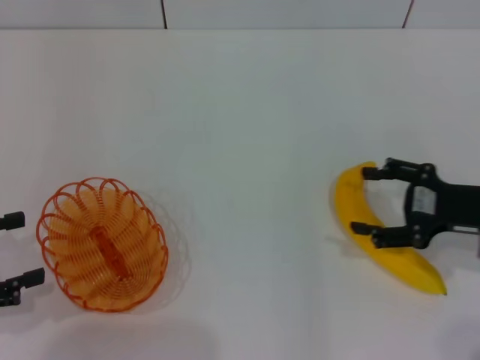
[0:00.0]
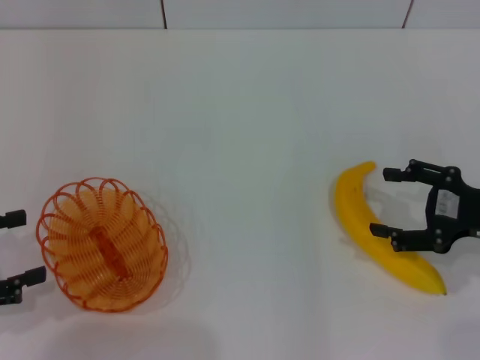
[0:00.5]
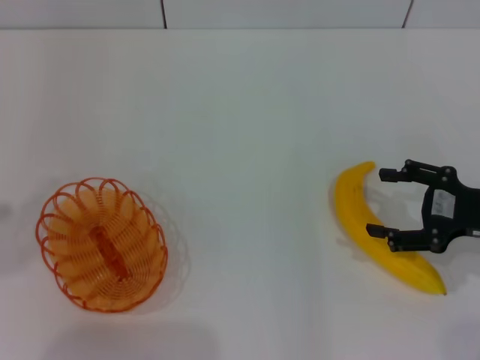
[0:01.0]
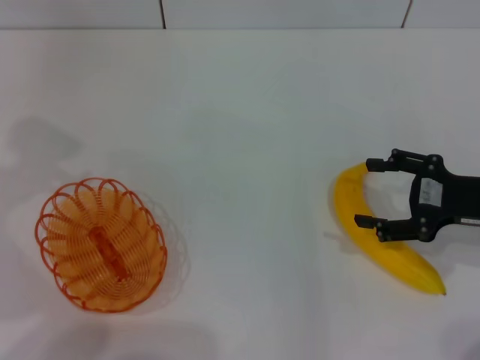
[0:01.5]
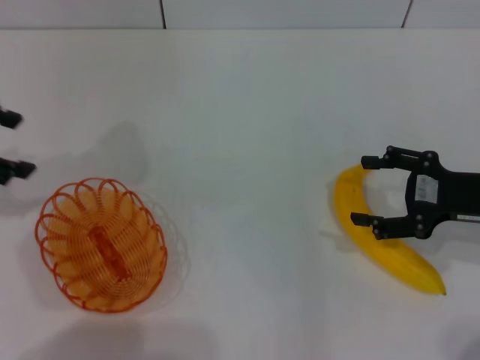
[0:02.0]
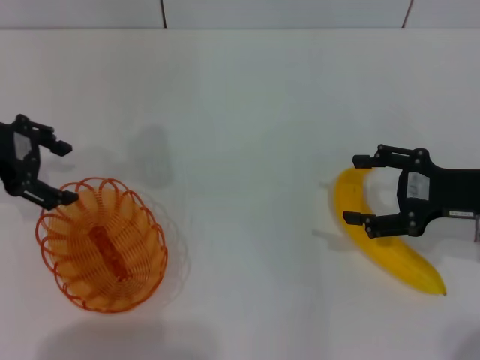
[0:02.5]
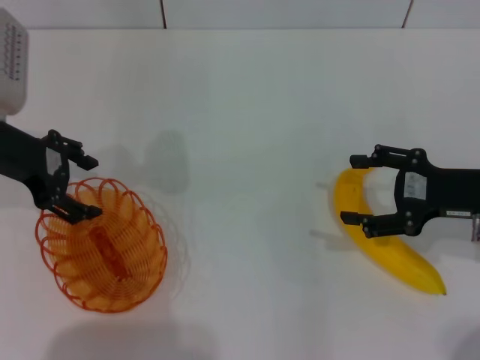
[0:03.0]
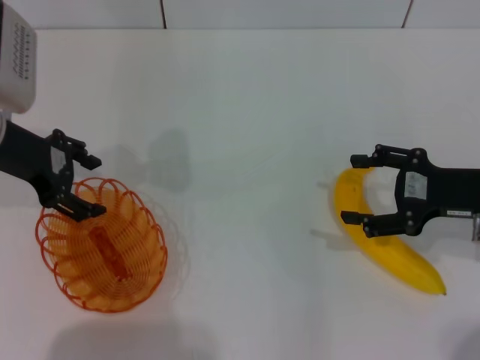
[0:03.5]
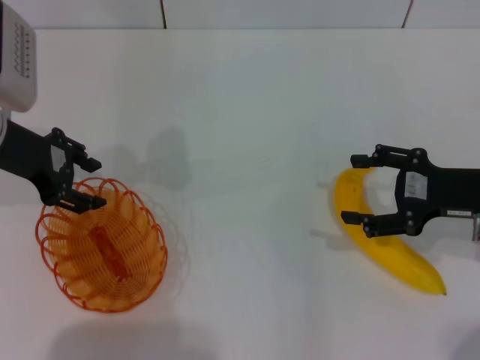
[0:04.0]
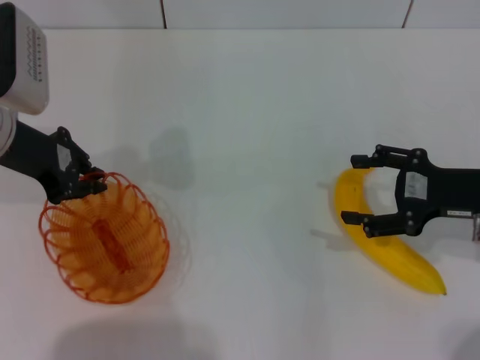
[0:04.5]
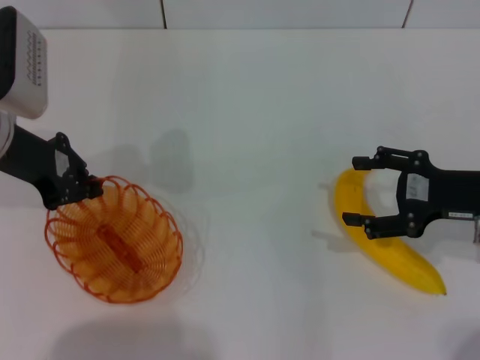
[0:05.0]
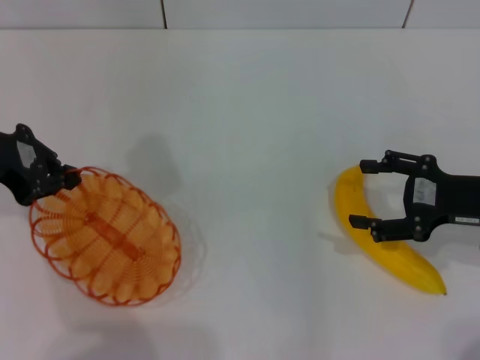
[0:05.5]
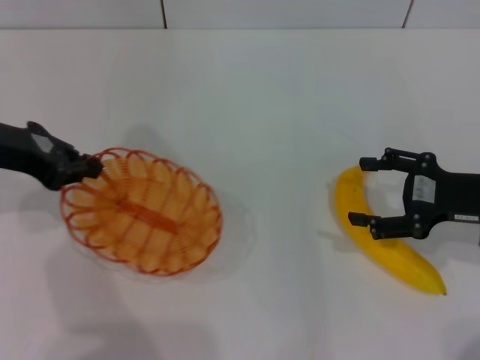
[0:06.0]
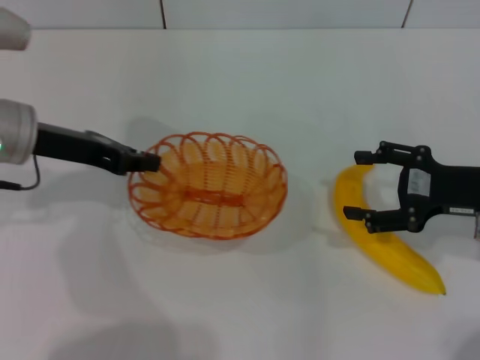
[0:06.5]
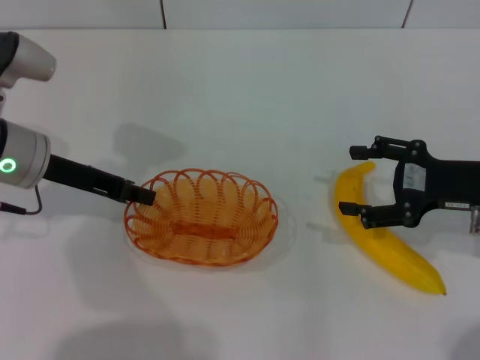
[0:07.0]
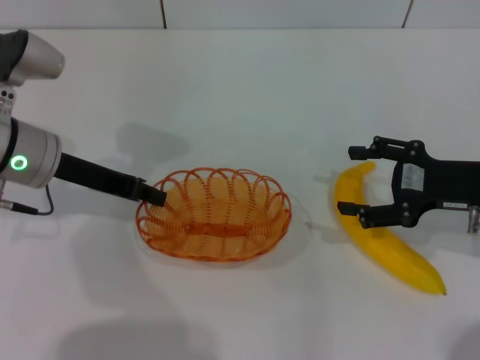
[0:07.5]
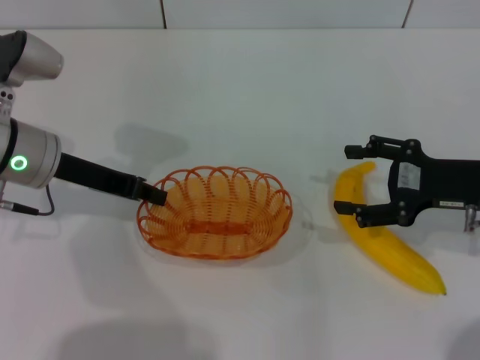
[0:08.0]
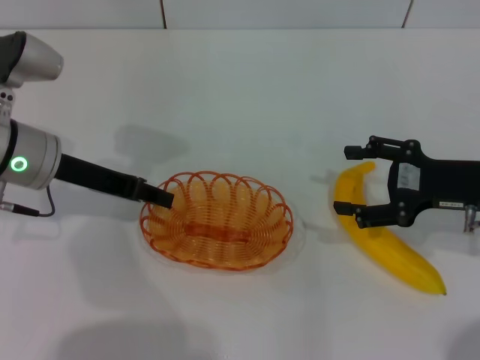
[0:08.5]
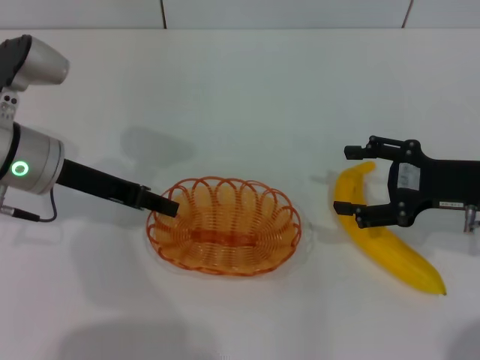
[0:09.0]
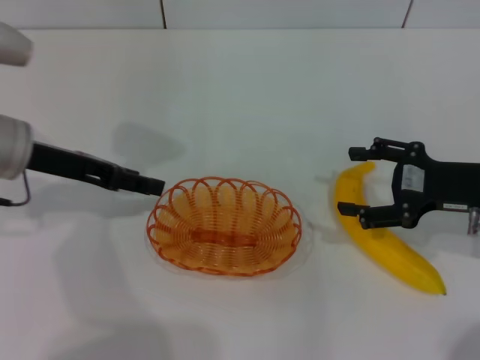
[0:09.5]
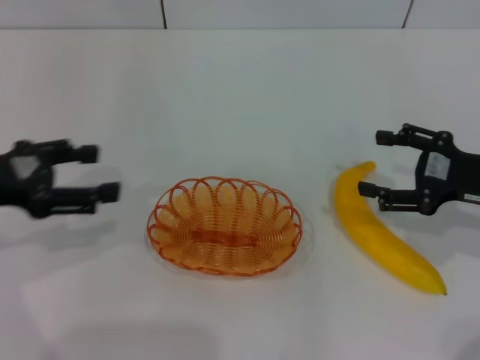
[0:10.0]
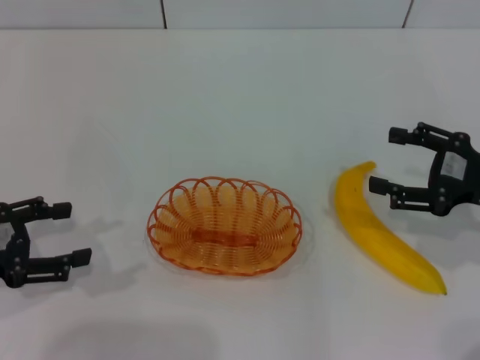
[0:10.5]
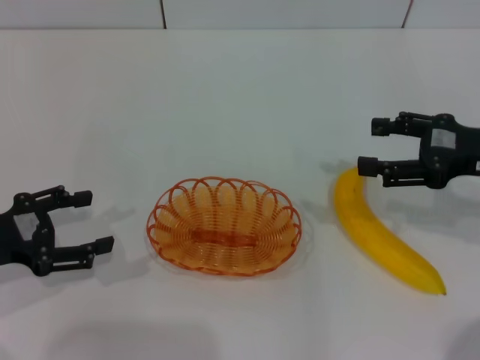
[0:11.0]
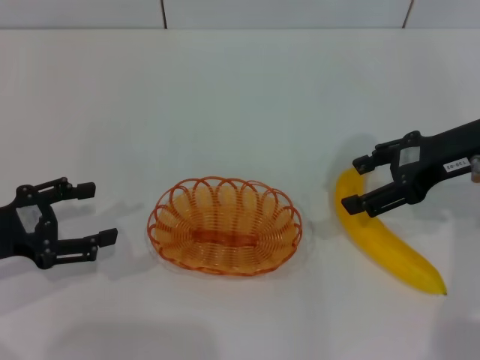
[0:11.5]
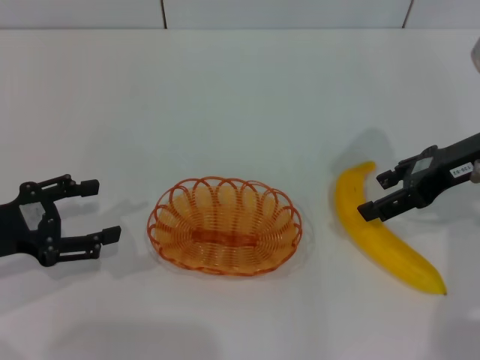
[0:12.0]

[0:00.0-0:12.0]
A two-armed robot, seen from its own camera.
Step, 0:00.0 to 0:05.0: Pick up the basket with the left gripper.
Step, 0:05.5 to 0:09.0: Place the basket in the center of view with the left gripper.
0:00.0 to 0:02.0: The left gripper travels forward and upward by about 20 cm.
0:02.0 to 0:04.0: The left gripper travels to the right and downward by about 10 cm.
0:04.0 to 0:06.0: The left gripper closes.
0:06.0 to 0:08.0: The left gripper heads downward and to the right, covering roughly 10 cm.
0:08.0 to 0:10.0: The left gripper goes about 10 cm to the left and backward, and opens up.
0:10.0 to 0:12.0: The right gripper is displaced upward and forward by some 10 cm. The left gripper is displaced downward by roughly 5 cm.

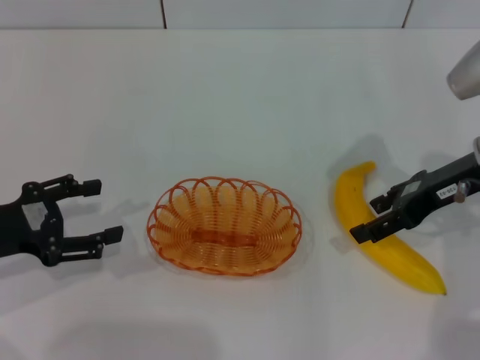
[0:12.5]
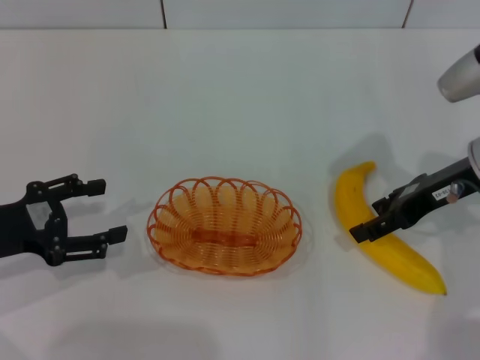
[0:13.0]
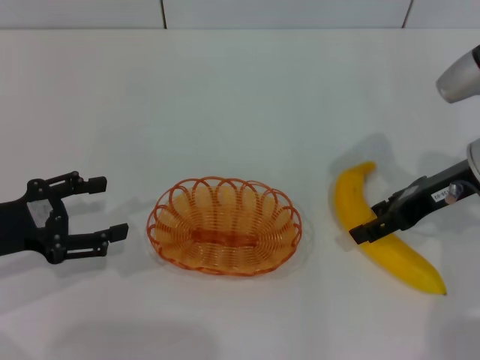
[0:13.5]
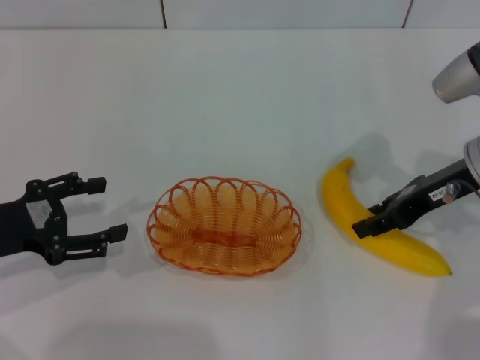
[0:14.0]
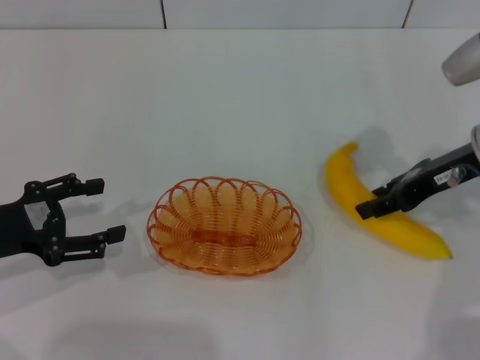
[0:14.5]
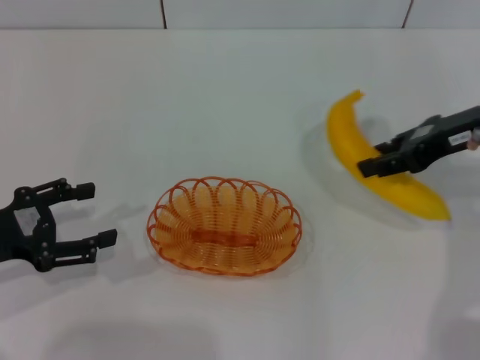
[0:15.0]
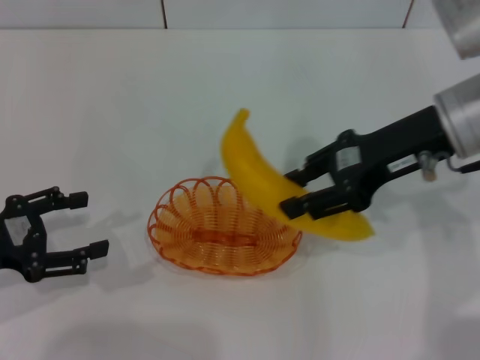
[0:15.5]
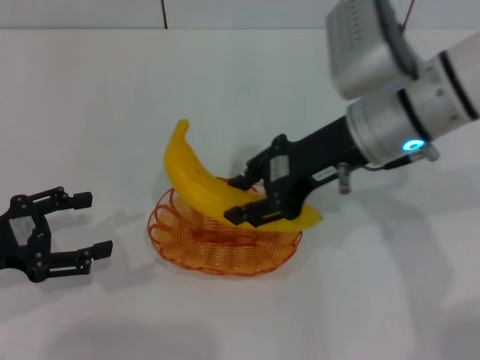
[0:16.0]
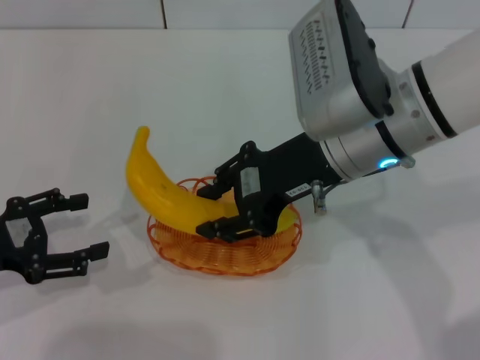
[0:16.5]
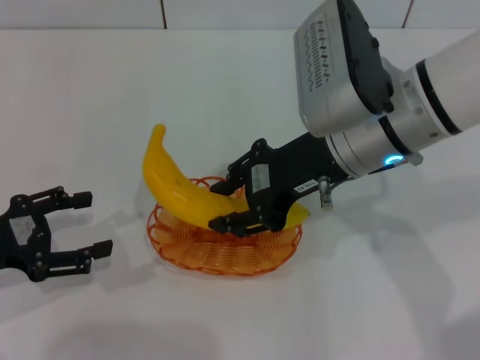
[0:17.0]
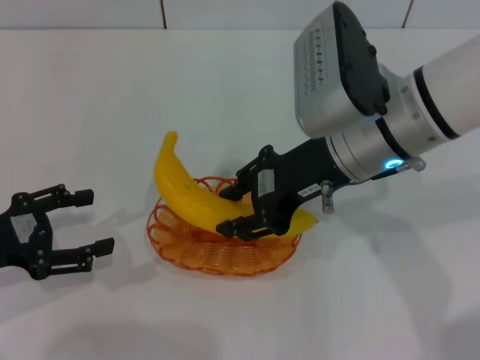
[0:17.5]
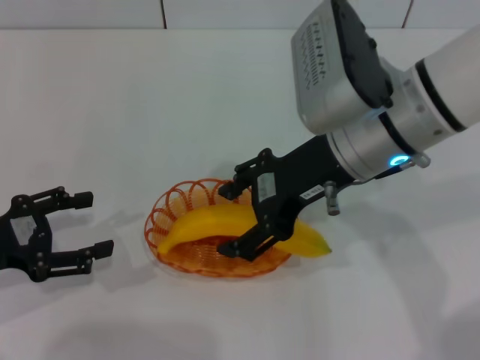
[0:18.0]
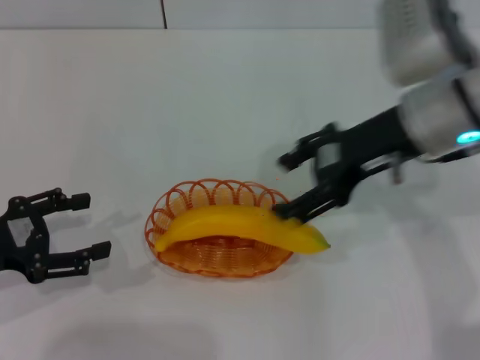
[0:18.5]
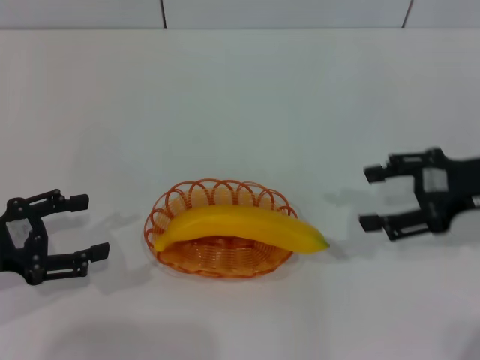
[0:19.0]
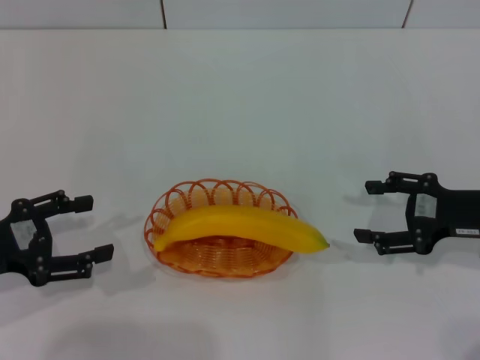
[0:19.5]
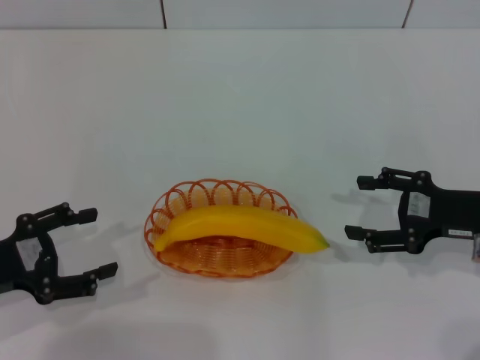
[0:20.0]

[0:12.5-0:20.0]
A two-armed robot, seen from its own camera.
Step, 0:12.5 to 0:15.0: Pick up the banana with the right gripper.
Step, 0:15.5 to 0:18.0: Place the banana into the basket with the right gripper.
0:12.5 to 0:14.5: The right gripper closes its fingers.
0:14.5 to 0:16.5: The right gripper shifts roughly 15 cm to the left.
0:16.5 to 0:18.0: The right gripper opens its fingers.
0:18.0 to 0:20.0: The right gripper is displaced to the right and downward by roughly 20 cm.

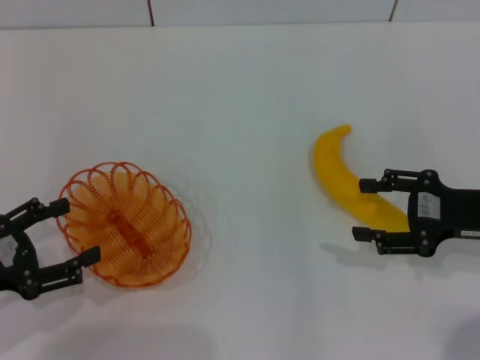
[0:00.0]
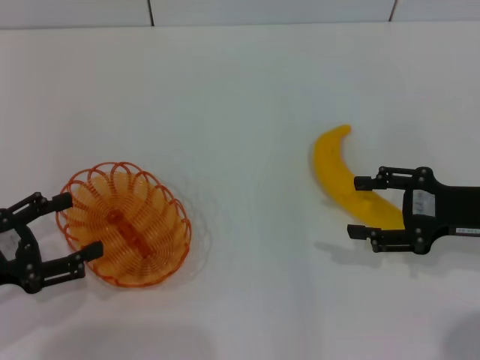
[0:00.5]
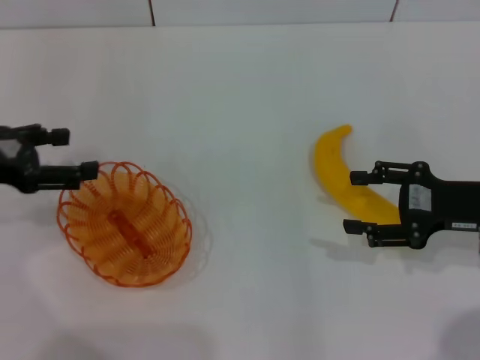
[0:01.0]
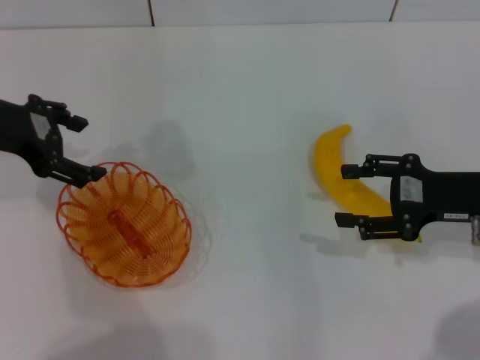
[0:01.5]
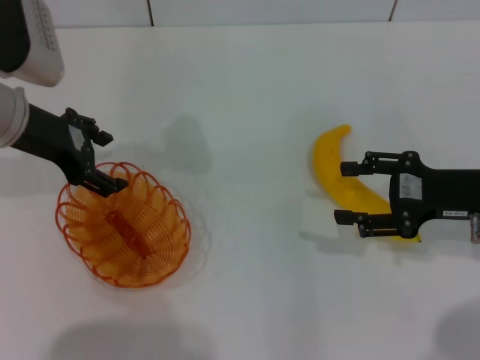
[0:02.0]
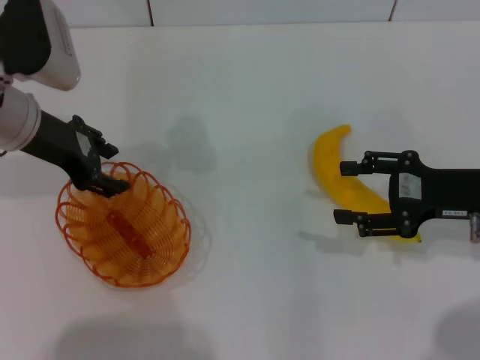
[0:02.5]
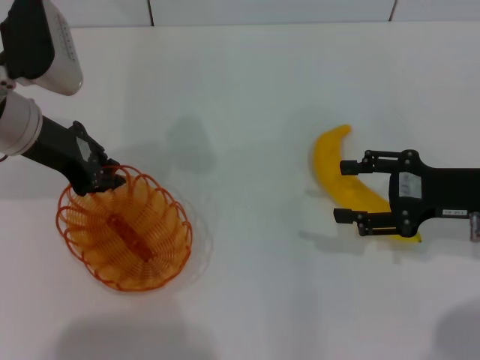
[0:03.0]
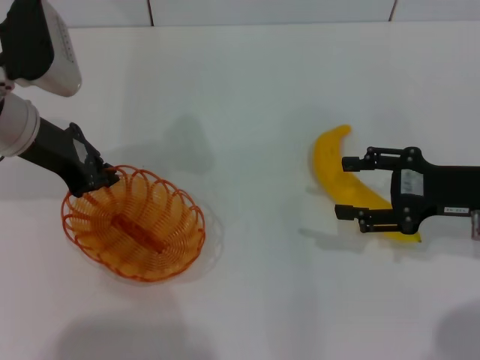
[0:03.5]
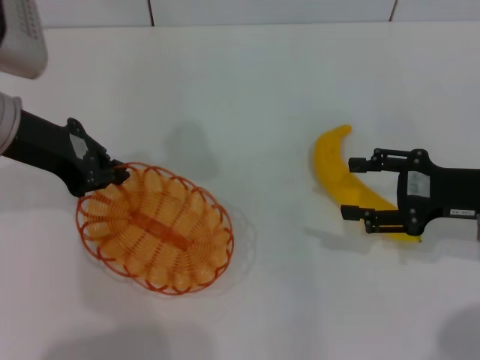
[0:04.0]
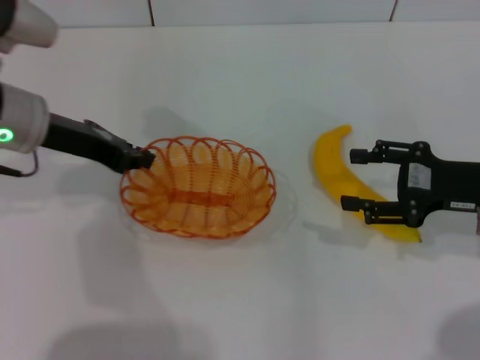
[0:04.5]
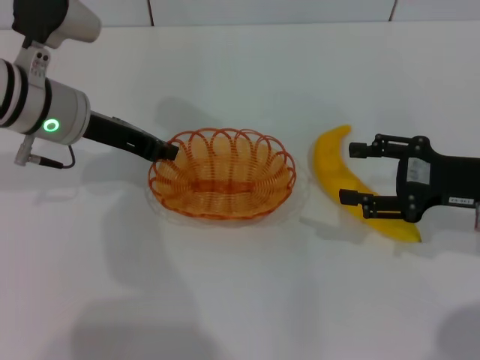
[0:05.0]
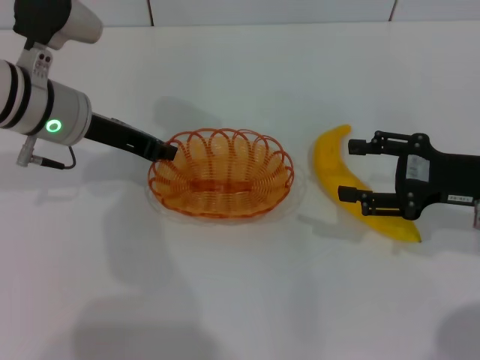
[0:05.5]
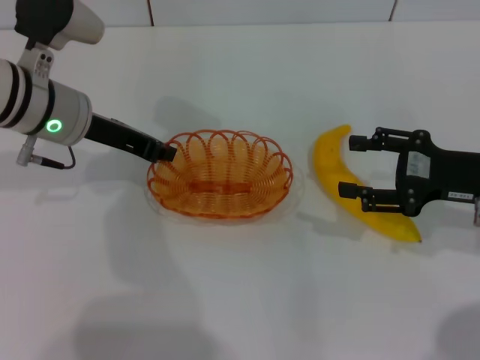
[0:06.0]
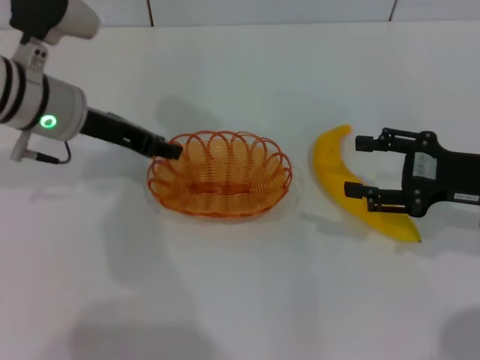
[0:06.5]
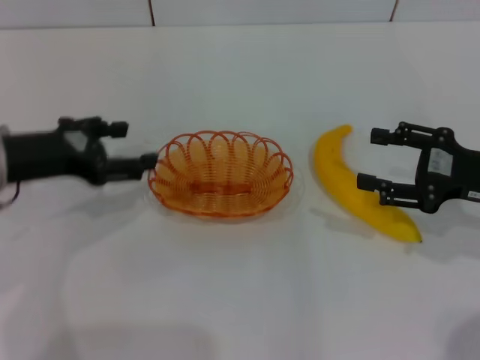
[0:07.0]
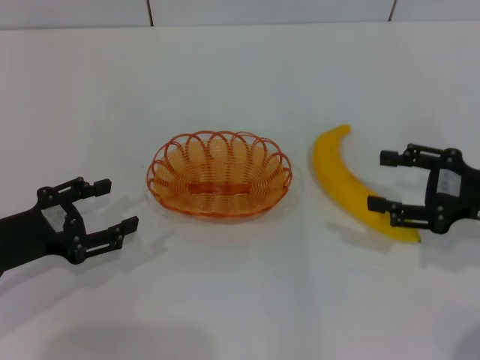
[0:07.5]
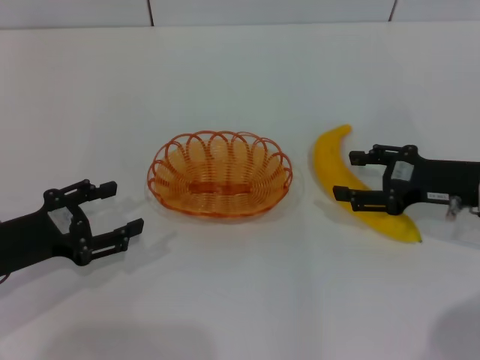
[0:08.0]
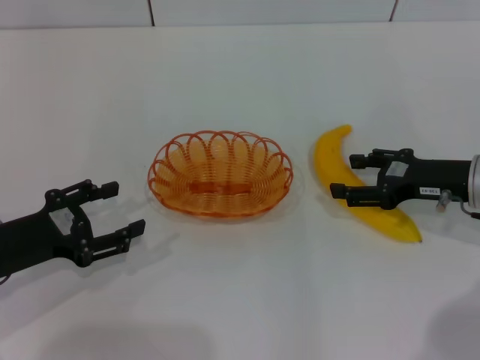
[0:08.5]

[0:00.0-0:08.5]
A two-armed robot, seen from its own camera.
Step, 0:00.0 to 0:04.0: Pick up the basket with the left gripper.
Step, 0:04.5 to 0:06.5: Place the basket in the center of view with the left gripper.
0:00.0 to 0:02.0: The left gripper goes roughly 20 cm forward, upward and to the right.
0:02.0 to 0:04.0: The left gripper closes its fingers.
0:04.0 to 0:06.5: The left gripper moves some 5 cm.
0:06.5 to 0:08.5: The left gripper shifts approximately 20 cm backward, to the left and downward, and opens.
